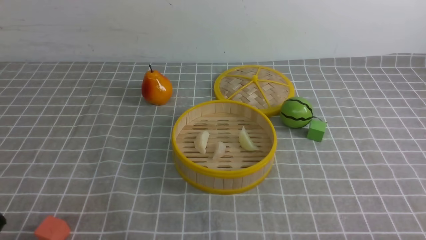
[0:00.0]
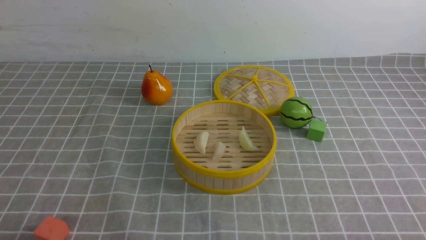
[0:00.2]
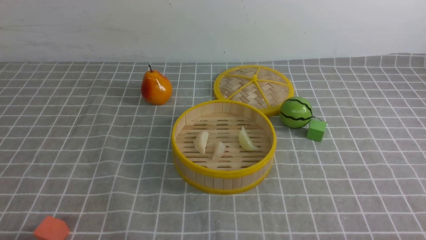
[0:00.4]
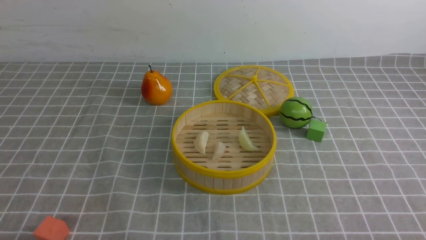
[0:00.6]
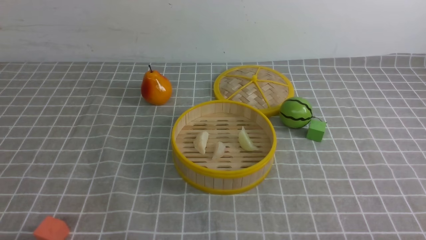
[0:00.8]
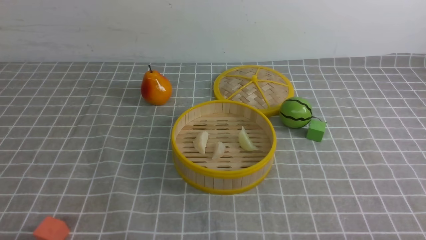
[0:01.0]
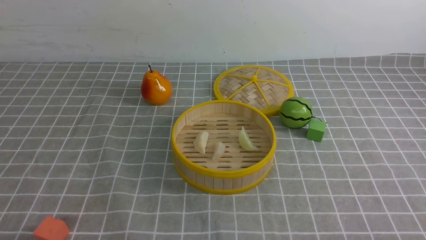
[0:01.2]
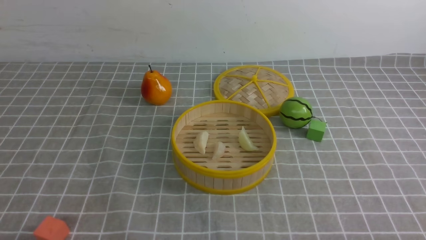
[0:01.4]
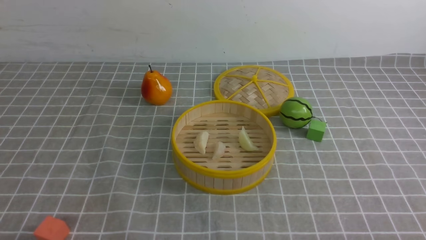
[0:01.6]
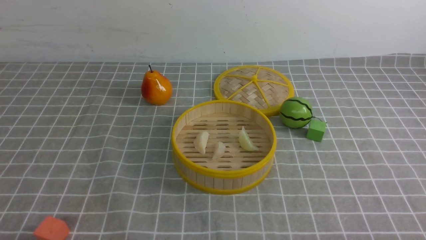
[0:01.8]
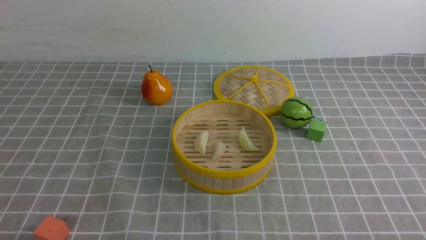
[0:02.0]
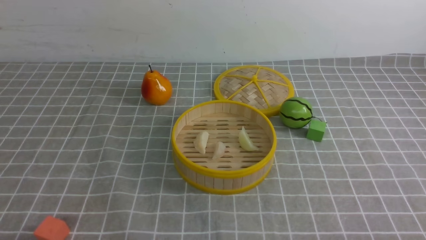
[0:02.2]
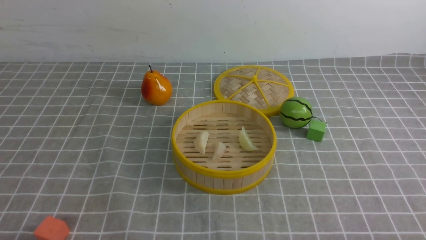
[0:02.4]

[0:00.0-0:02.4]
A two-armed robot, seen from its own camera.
Task of the whole recording: put the dumplings into the steamer on the table with the grey tablecloth.
0:01.2 to 0:02.4: Both grippers stay put.

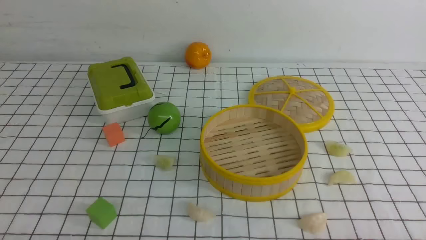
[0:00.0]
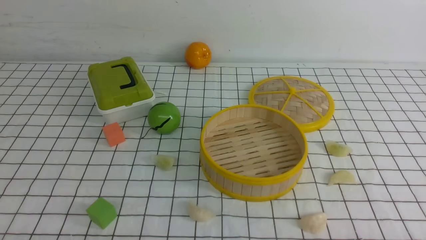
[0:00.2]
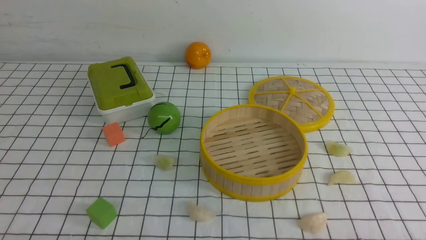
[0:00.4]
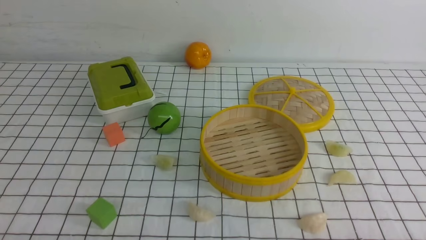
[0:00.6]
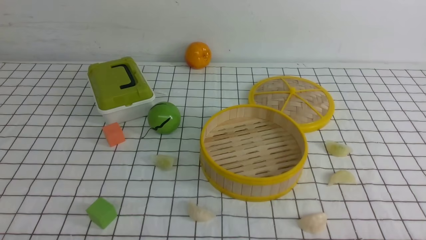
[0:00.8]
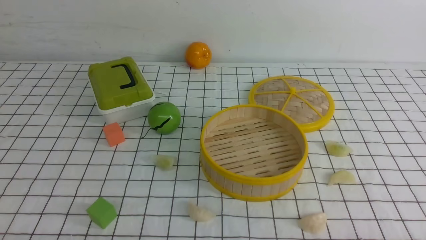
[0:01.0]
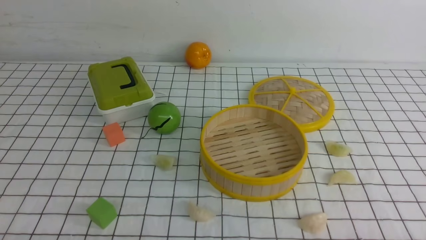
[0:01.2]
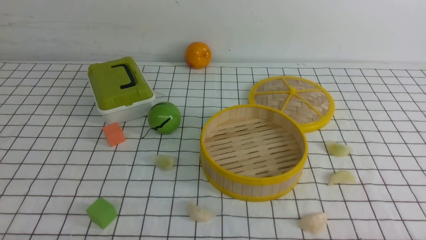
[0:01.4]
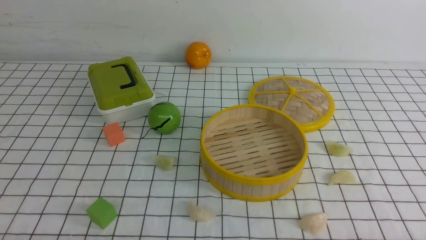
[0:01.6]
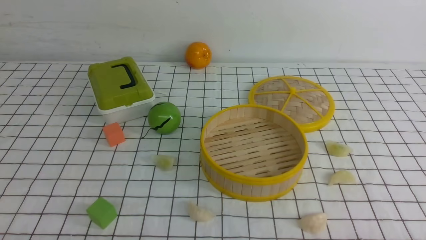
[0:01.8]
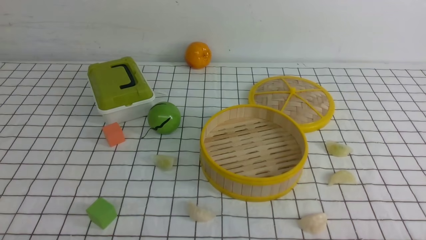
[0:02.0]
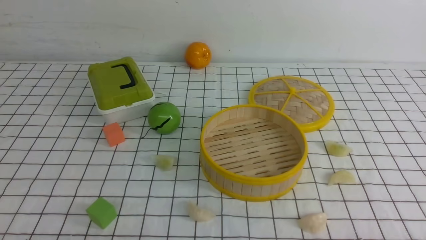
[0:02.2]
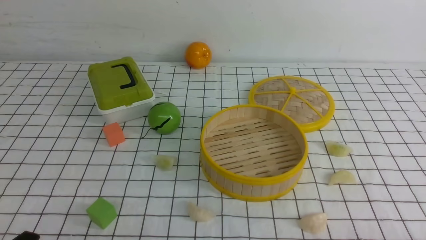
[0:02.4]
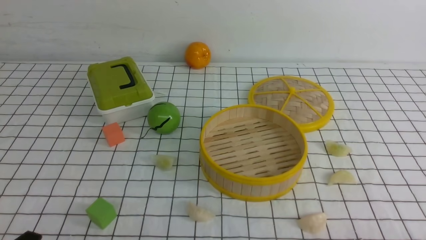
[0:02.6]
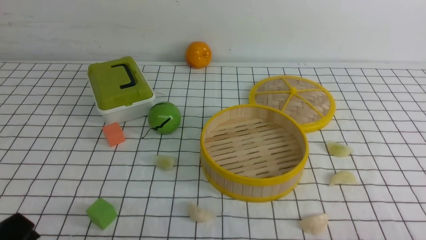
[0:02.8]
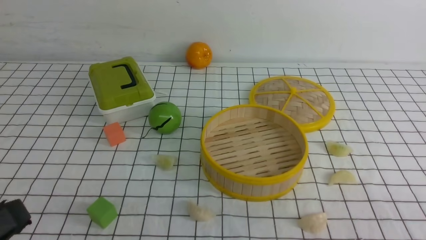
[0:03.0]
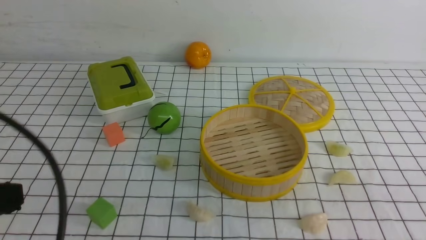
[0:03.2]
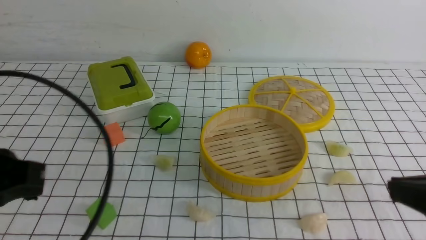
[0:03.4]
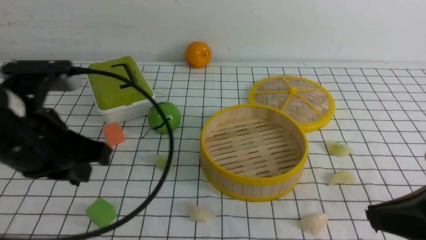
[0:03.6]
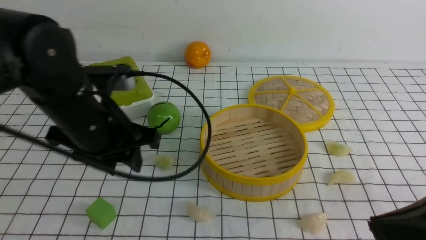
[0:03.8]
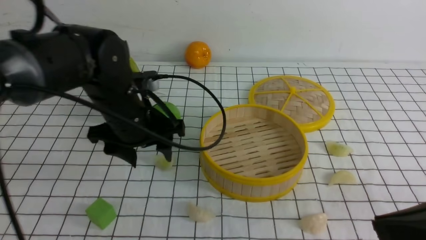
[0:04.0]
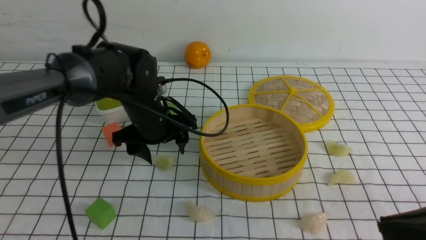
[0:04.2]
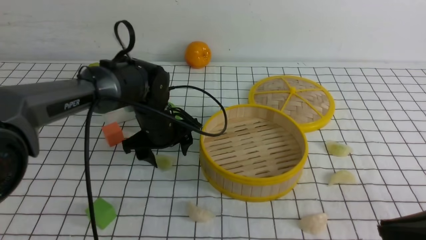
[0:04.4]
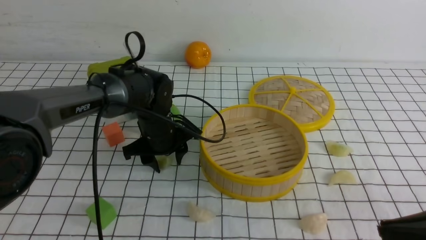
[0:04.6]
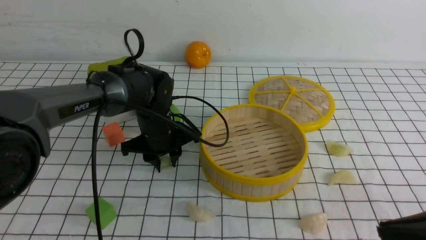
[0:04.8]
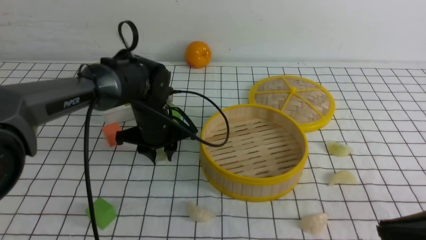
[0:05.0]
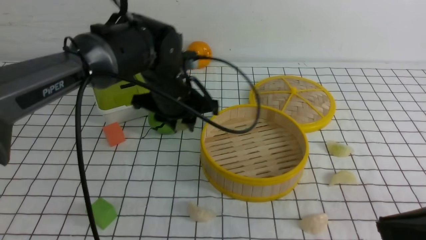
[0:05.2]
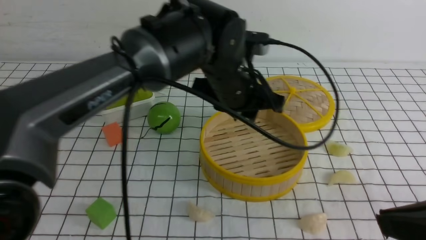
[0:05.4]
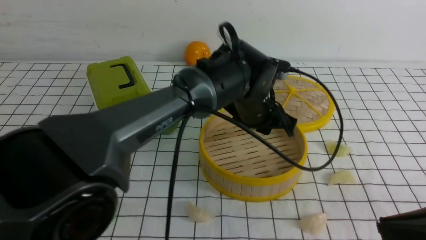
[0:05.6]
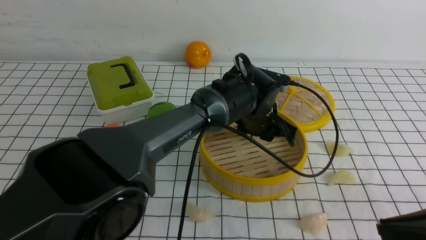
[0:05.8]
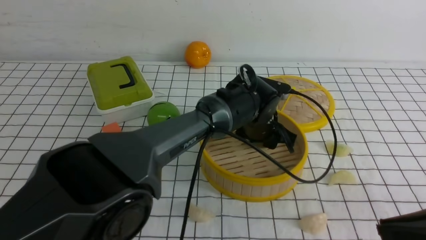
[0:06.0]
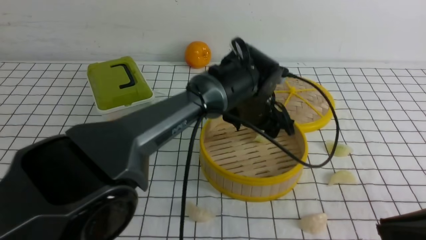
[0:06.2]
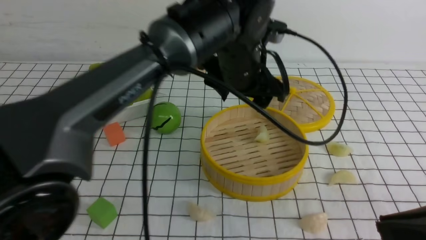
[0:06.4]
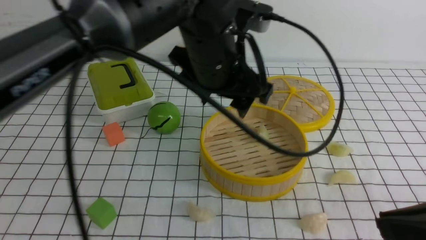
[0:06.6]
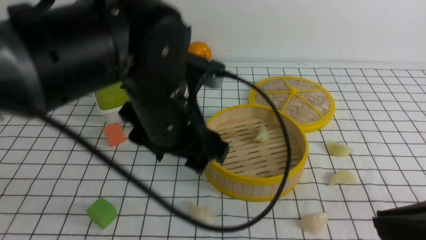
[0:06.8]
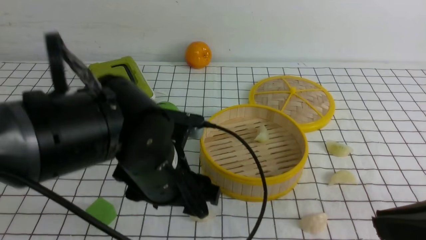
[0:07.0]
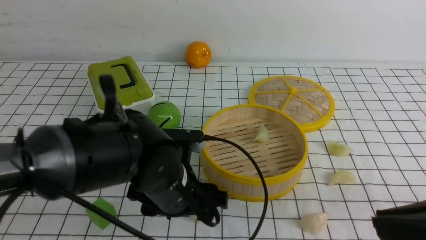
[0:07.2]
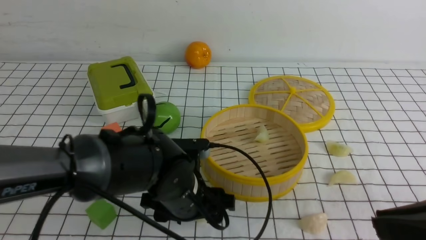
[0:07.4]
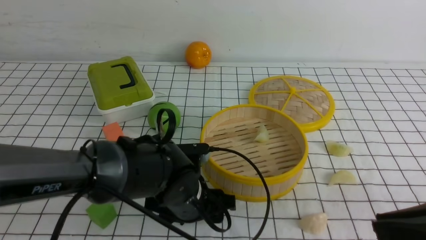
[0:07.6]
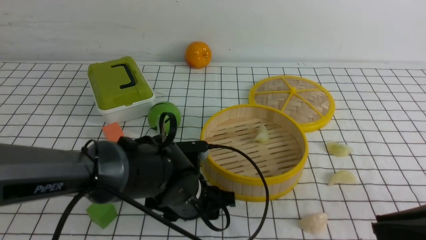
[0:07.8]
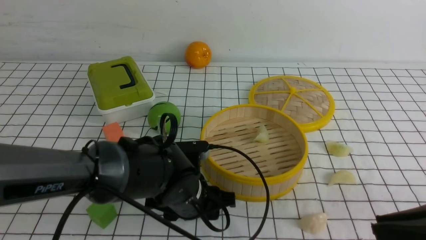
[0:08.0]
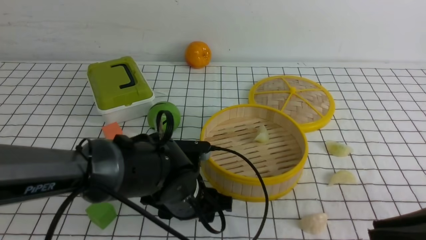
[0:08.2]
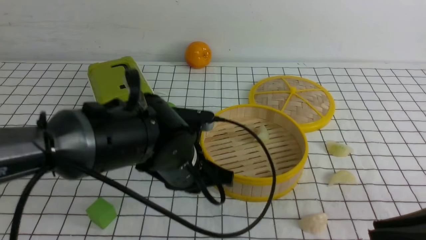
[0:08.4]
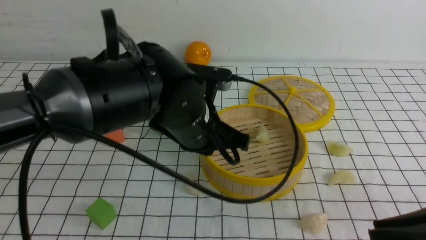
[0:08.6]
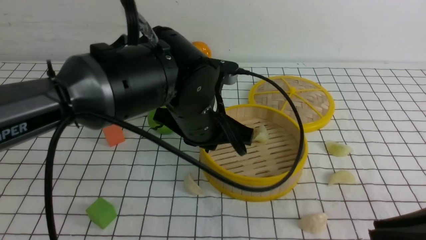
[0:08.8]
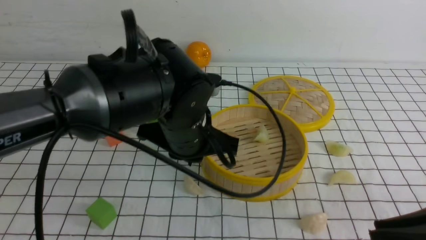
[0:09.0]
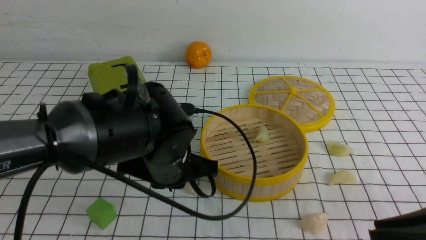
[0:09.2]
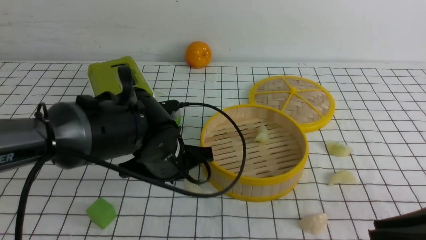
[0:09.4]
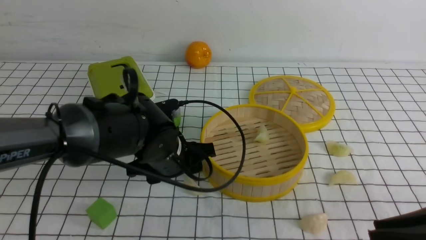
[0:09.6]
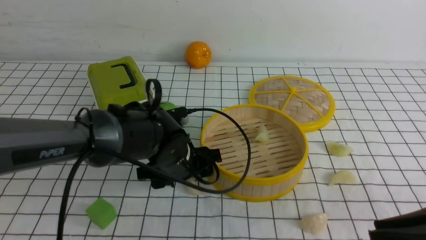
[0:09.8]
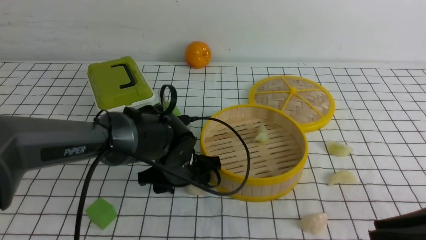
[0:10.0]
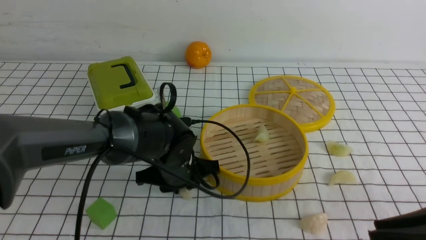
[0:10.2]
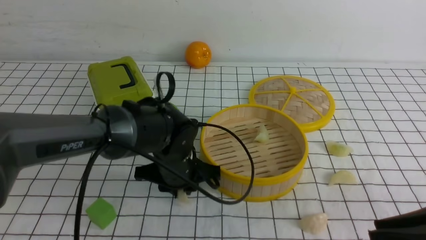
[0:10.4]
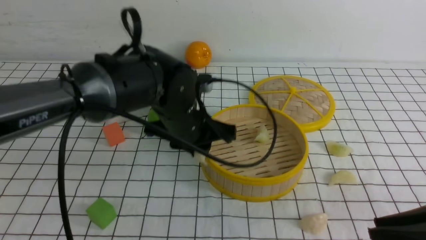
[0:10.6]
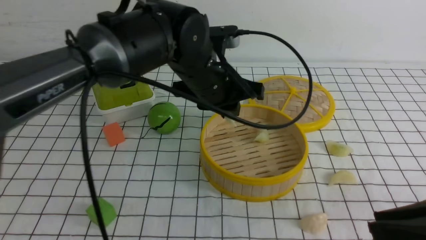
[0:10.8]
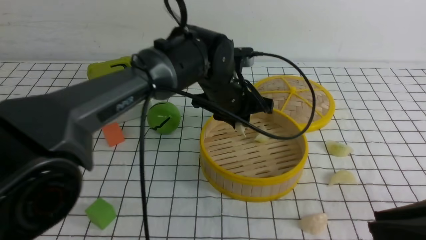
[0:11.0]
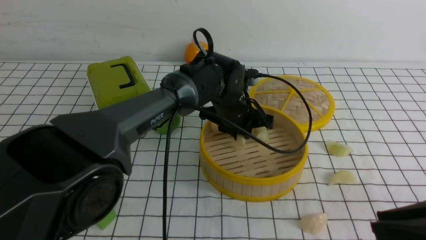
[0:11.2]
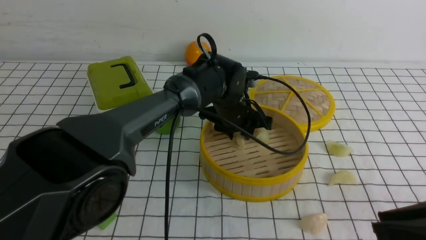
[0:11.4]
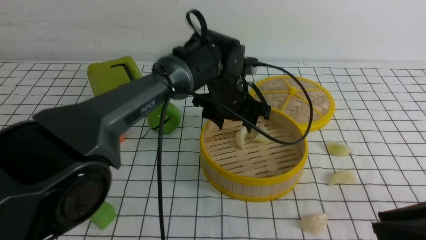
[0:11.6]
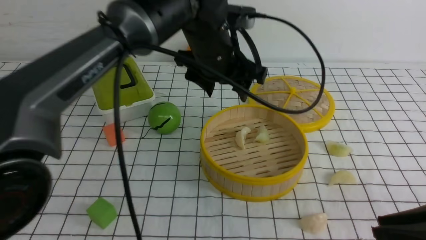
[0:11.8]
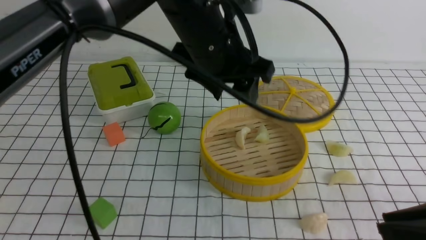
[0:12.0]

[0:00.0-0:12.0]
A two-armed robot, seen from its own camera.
Task of the whole recording: put the dumplings into the steamer on the table with the white tablecloth.
Step, 0:00.0 to 0:04.6: use the left arm to grab a dumpling.
Step, 0:05.0 to 0:06.2: use the left arm to put the dumpling into the steamer.
Step, 0:06.6 to 0:10.2: use the left arm to grab a dumpling.
Step, 0:10.4 to 0:11.6: use the left arm to put the dumpling into the steamer.
0:01.6 to 0:03.0: The left gripper shifts roughly 15 cm upward.
0:03.0 to 0:04.4: The right gripper moves upward, approximately 5 cm; the left gripper shifts approximately 35 cm forward, and opens up.
0:04.4 to 0:06.0: The left gripper goes some 15 cm to the right.
0:06.0 to 0:07.6: The left gripper moves backward and to the left, some 20 cm, and moves about 15 cm upward and comes back.
0:07.6 to 0:09.0: The left gripper moves upward, roughly 10 cm, and closes its fingers.
0:09.0 to 0:10.4: The left gripper shifts about 10 cm downward, and opens up.
0:10.4 to 0:12.0: The left gripper moves up and down over about 15 cm, changing direction 2 times, and opens.

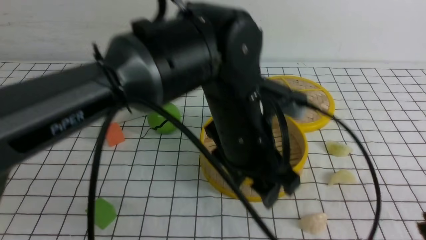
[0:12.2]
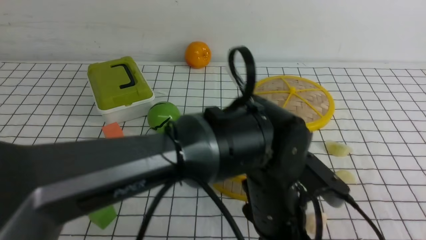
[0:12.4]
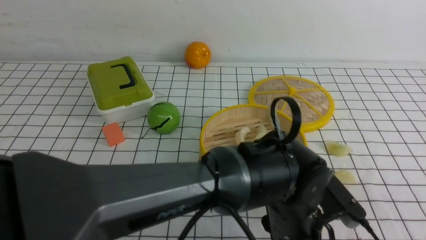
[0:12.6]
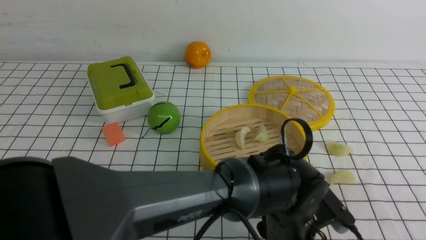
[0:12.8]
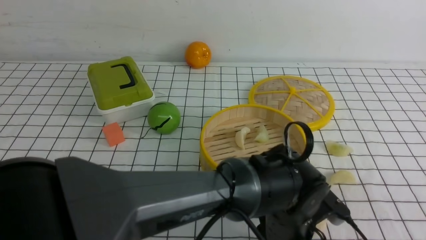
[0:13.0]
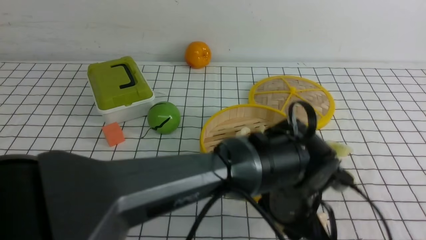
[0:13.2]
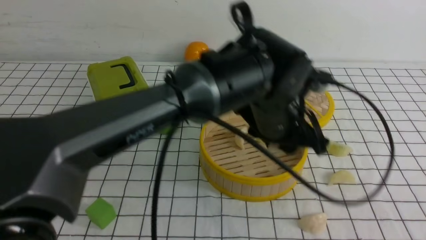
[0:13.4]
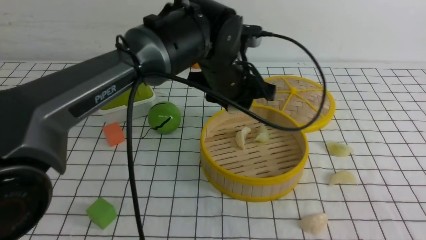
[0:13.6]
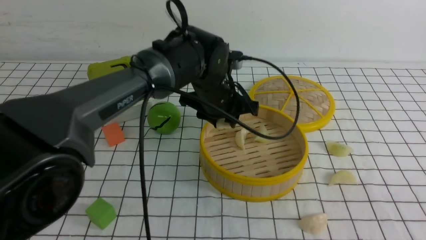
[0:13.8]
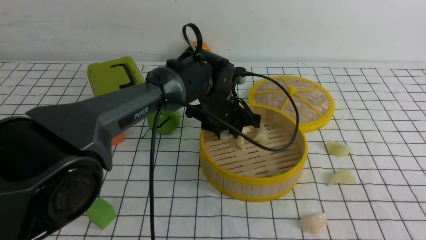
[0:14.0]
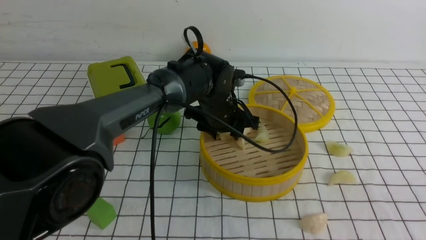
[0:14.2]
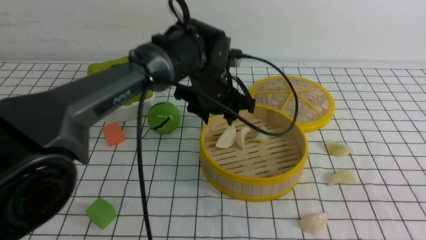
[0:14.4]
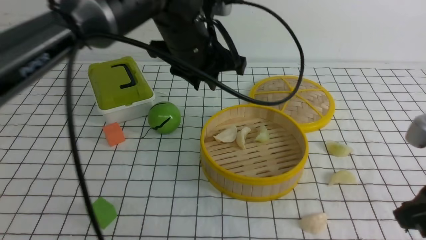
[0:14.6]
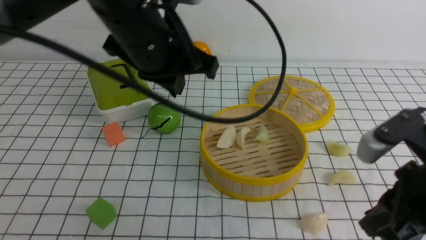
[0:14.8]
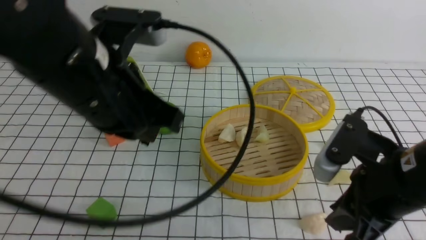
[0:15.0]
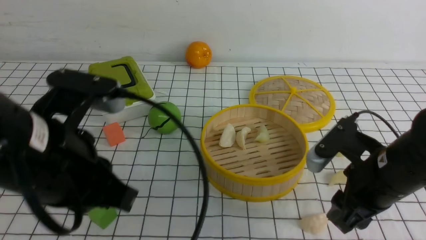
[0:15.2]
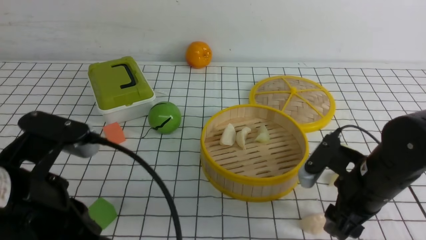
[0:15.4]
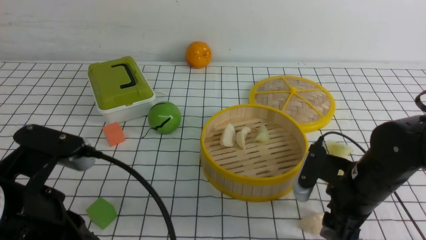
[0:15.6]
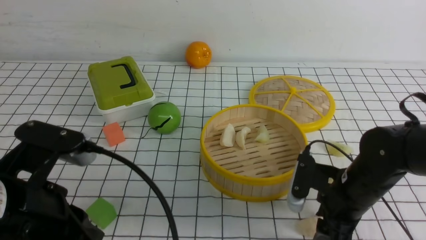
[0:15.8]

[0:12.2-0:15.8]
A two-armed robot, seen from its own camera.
Task of the whole recording: put the dumplings into the steamer on the table with the white tablecloth.
Step, 0:12.2 to 0:13.0: use the left arm to grab a dumpling.
Step, 0:13.2 to 0:14.4: use the left arm to put the dumpling into the steamer.
0:12.2 to 0:14.0: The left gripper heads forward and downward, covering some 15 cm.
0:14.0 to 0:15.8: The left gripper travels backward and to the left by about 35 cm, and closes; the right gripper travels forward and downward by roughly 30 cm, and opens up.
